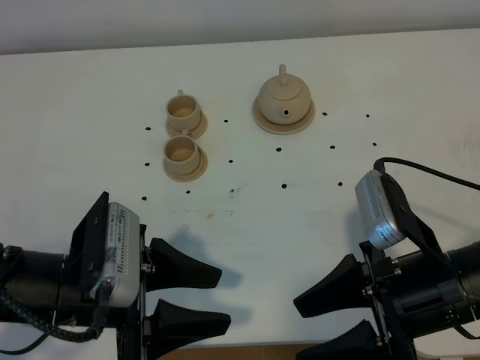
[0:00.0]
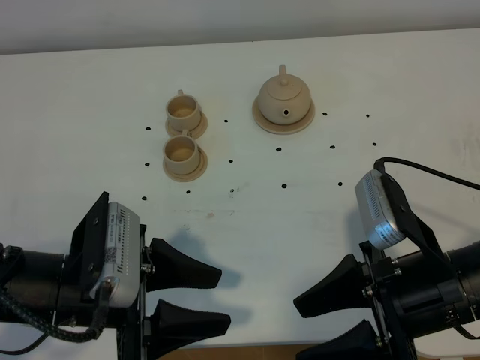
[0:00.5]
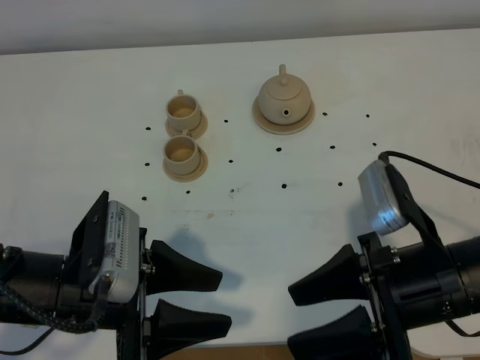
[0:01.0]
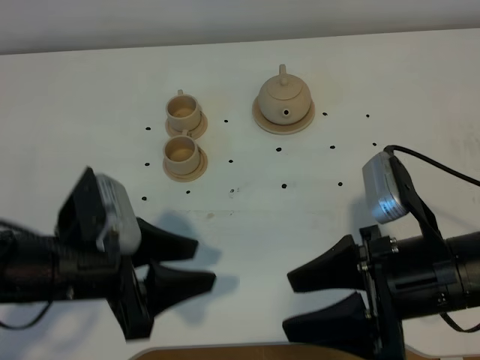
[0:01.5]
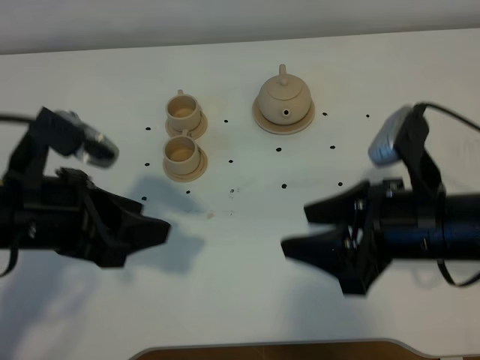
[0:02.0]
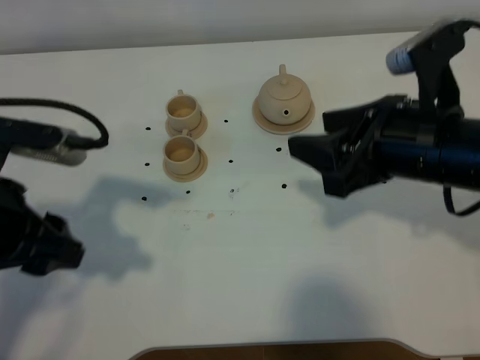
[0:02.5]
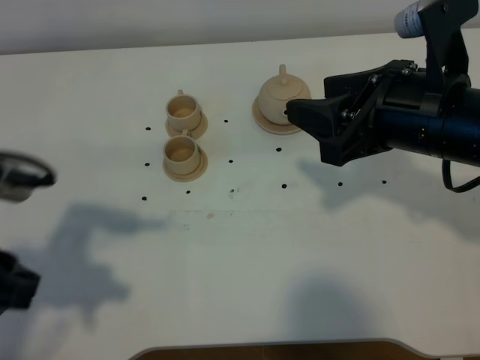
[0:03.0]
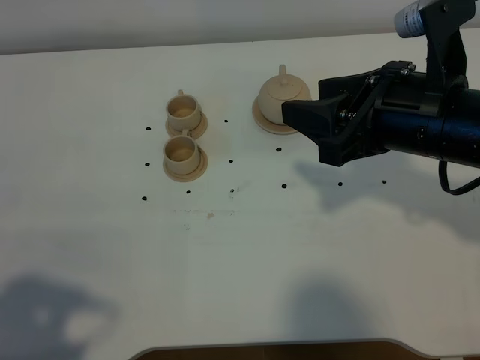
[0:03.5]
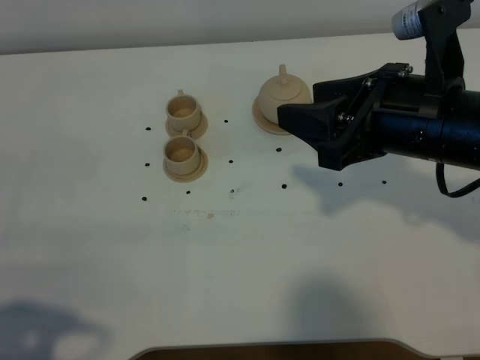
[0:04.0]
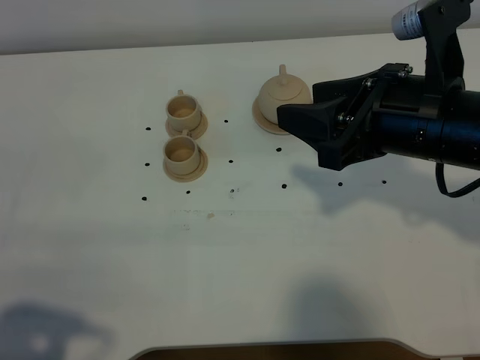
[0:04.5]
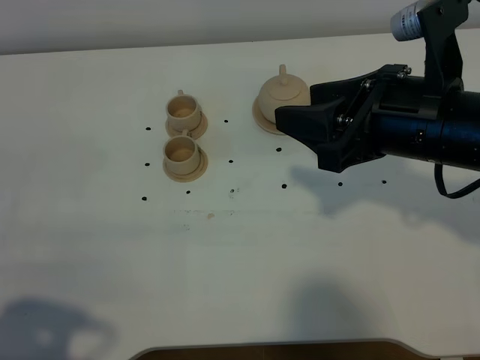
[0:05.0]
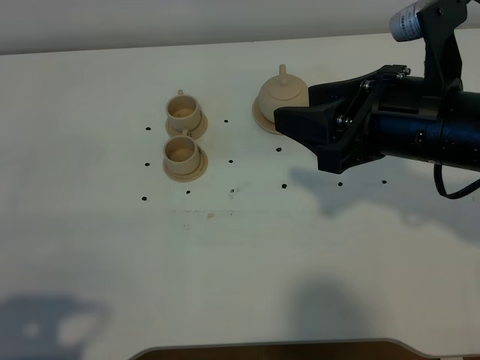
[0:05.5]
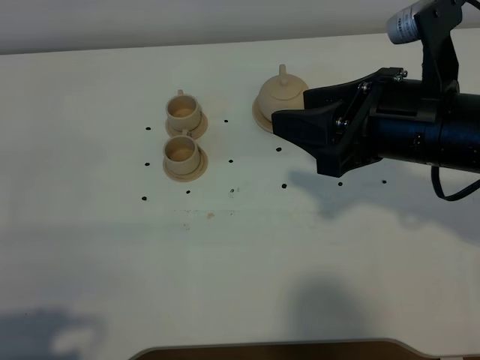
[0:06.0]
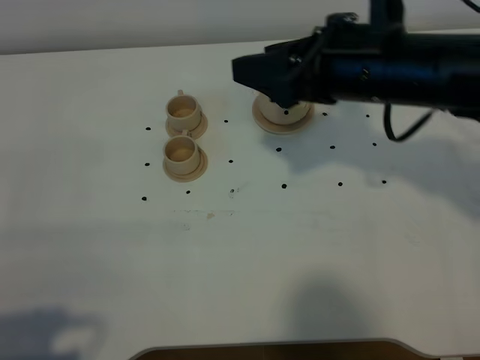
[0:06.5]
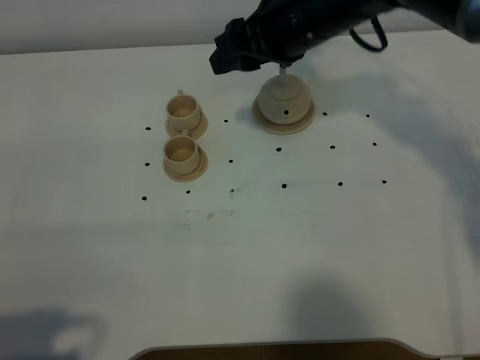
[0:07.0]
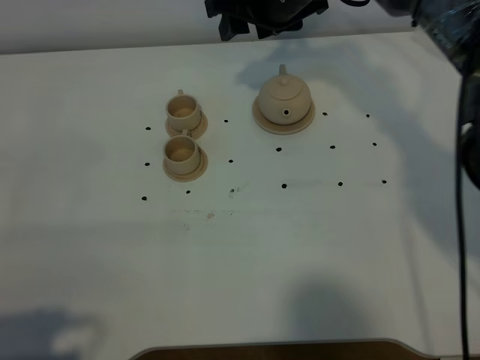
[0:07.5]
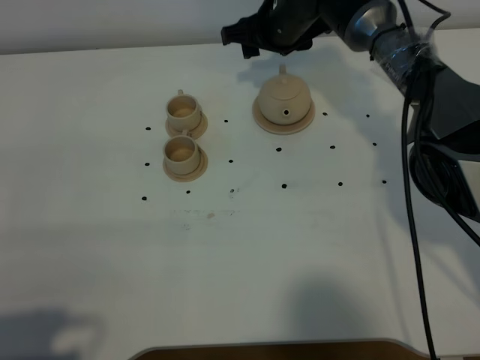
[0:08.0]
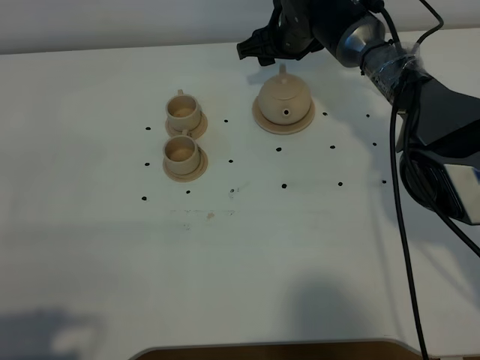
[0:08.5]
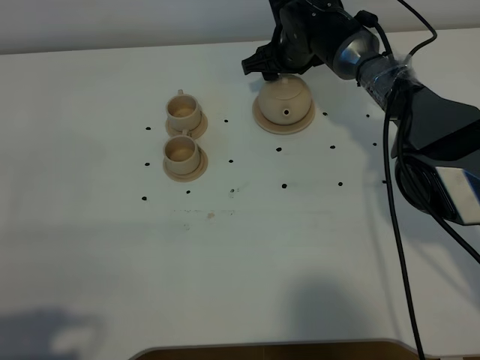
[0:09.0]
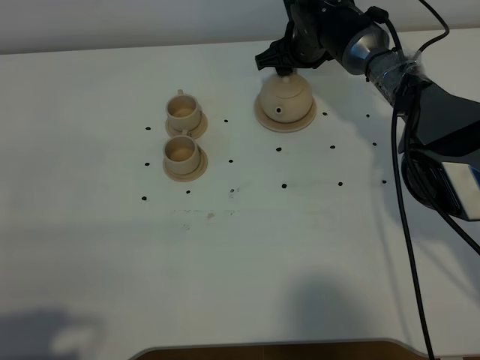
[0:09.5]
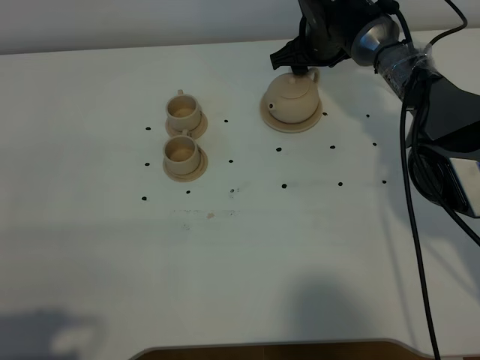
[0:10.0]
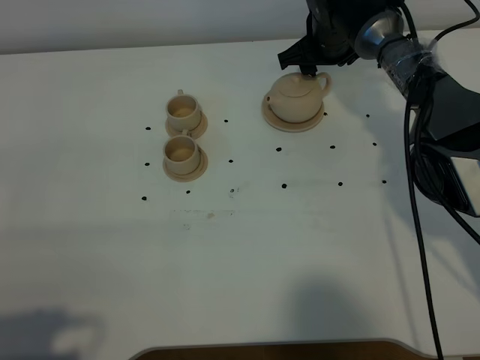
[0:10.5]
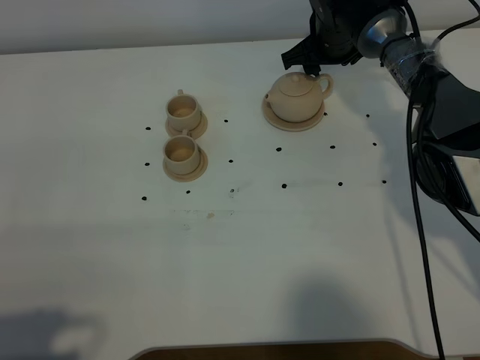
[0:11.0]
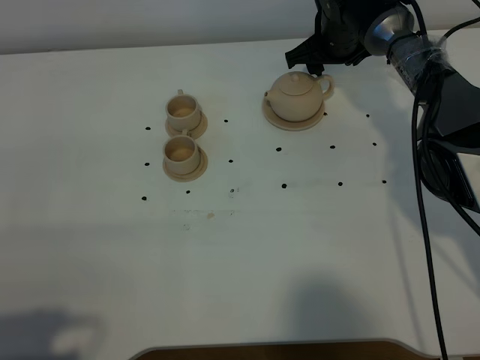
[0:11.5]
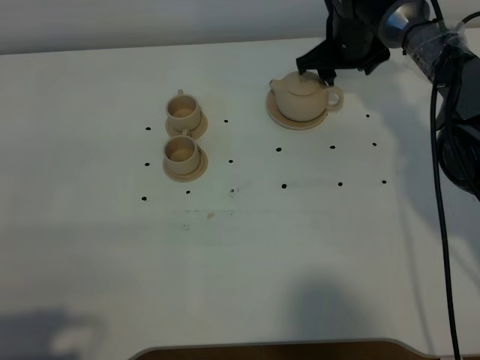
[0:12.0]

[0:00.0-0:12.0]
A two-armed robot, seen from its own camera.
Task of the whole recording: grasp the brown teapot and pour the tea into the two brown teacups one by one, put the brown teapot back in its original place.
0:00.0 to 0:02.0: The left gripper is displaced upward by roughly 5 cm. The right gripper changes place by approximately 5 cm.
0:02.0 to 0:04.0: The left gripper is displaced backward and to the left by approximately 20 cm, while the right gripper travels upward by roughly 5 cm.
0:04.0 to 0:06.0: There are only small adjustments of the grippers.
0:06.0 to 0:08.0: The right gripper travels forward by roughly 30 cm.
0:08.0 to 0:10.0: The right gripper is displaced to the right by about 5 cm.
0:10.0 to 0:12.0: The grippers make only small movements.

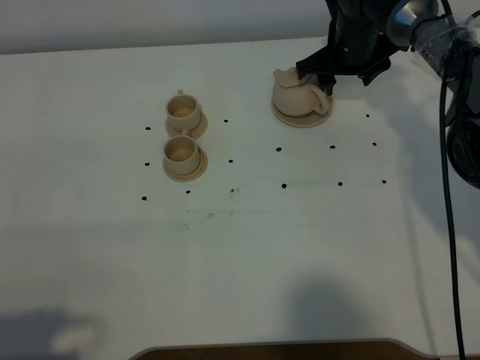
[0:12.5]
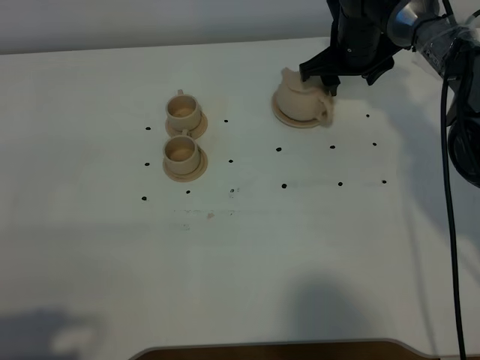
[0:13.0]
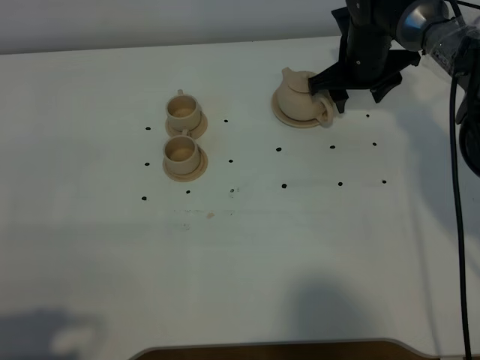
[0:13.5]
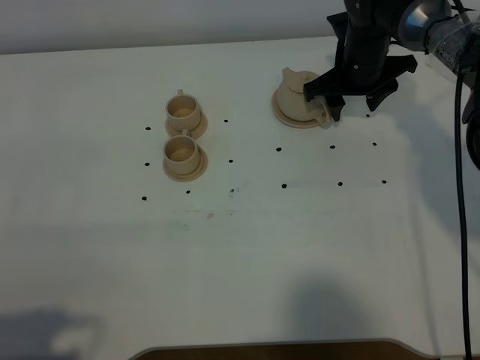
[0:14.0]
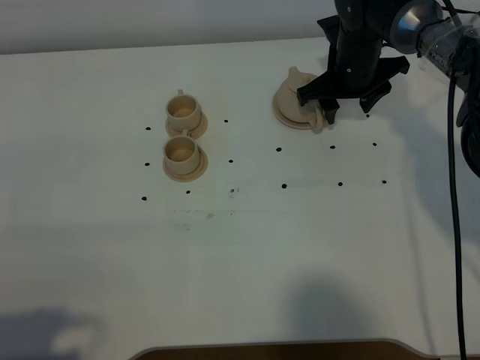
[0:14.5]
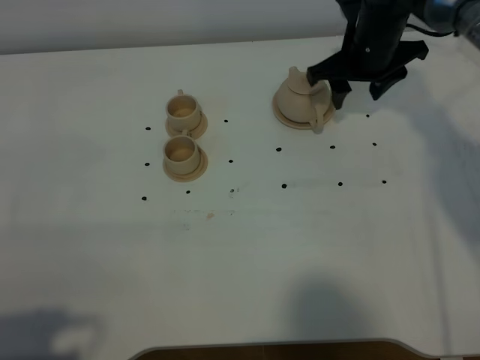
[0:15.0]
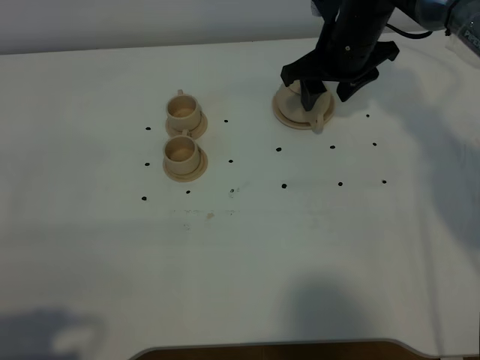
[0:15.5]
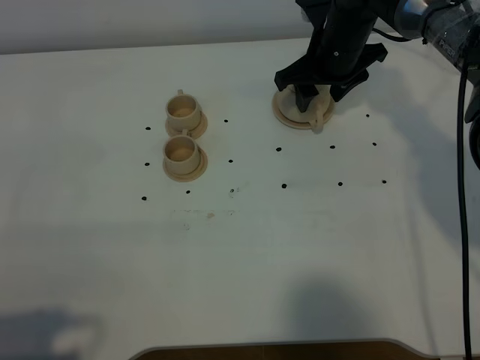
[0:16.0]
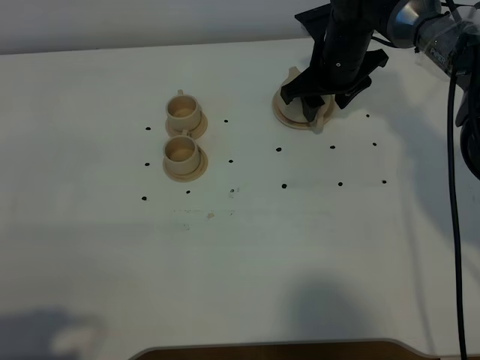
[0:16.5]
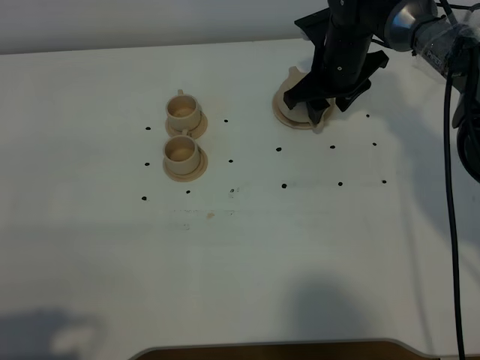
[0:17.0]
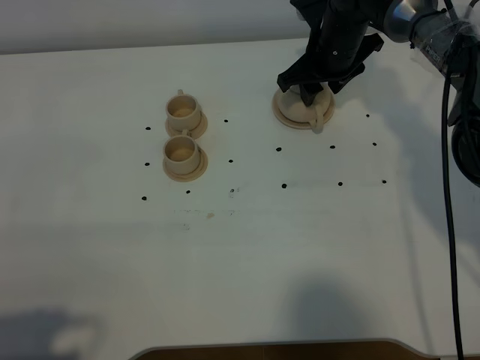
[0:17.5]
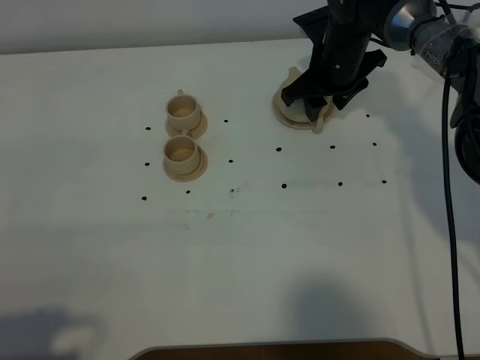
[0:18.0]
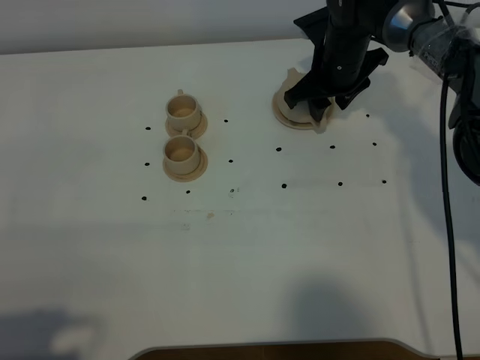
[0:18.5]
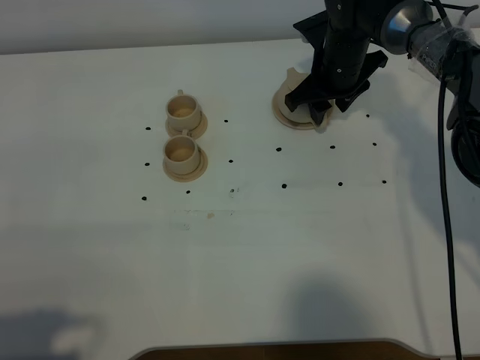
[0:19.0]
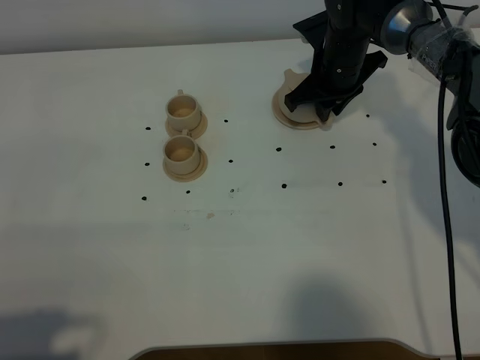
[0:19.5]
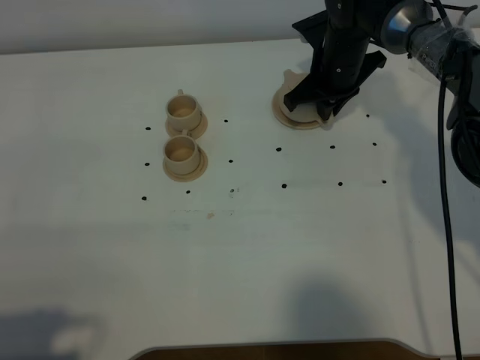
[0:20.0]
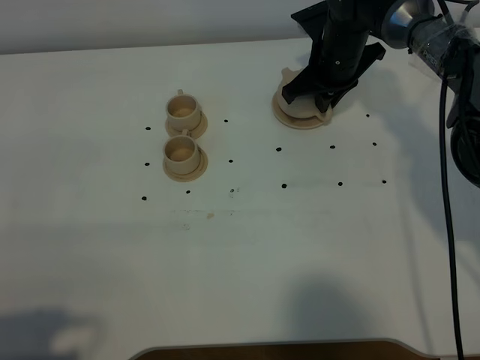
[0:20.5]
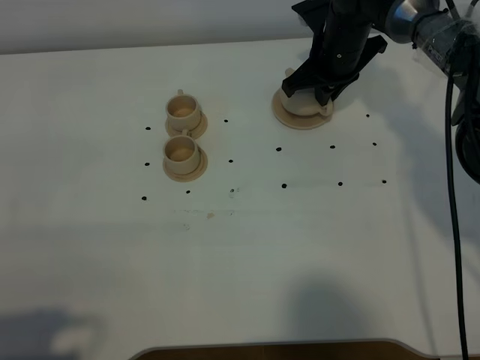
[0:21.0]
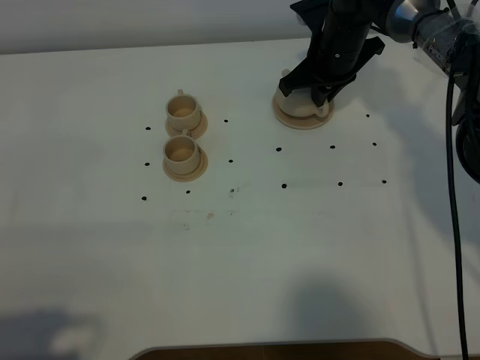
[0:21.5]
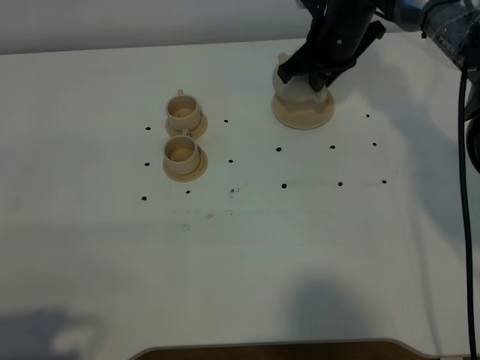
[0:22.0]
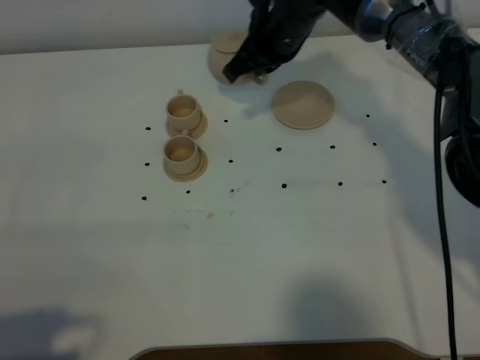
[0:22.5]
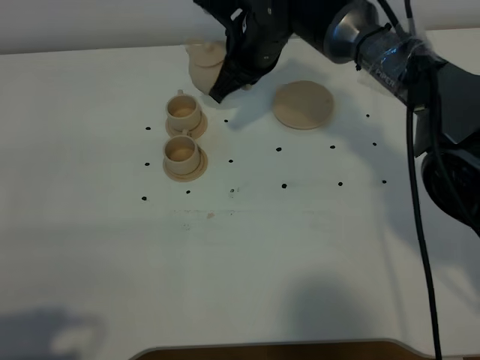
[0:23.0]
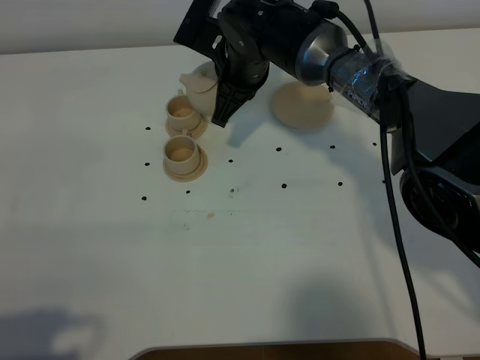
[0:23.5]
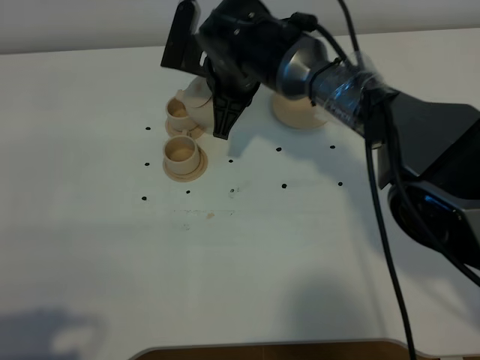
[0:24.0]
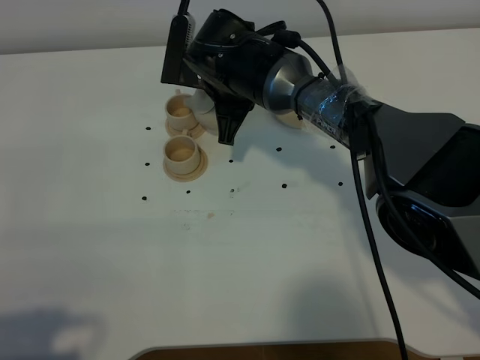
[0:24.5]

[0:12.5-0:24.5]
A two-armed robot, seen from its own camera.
Task of the whole recording: grasp the brown teapot and pour the tea into the two brown teacups one by one, put the brown teapot back in its original place.
Step, 0:12.5 to 0:20.5: Pick up the teapot with the right gripper.
0:12.5 to 0:14.5: The grippers stay close to where they were, moving slightly.
0:16.5 to 0:18.5: The grippers stay close to where they were, moving slightly.
0:18.5 to 0:20.5: The right gripper closes.
0:20.5 to 0:22.5: The right gripper moves to the left and upward, roughly 10 cm.
0:22.5 to 0:24.5: The right gripper is displaced to the left by approximately 5 cm.

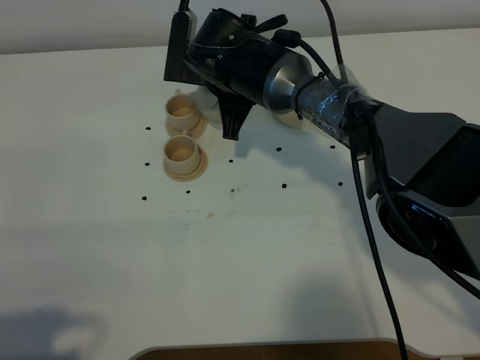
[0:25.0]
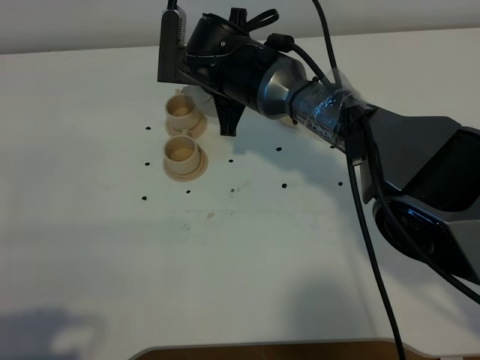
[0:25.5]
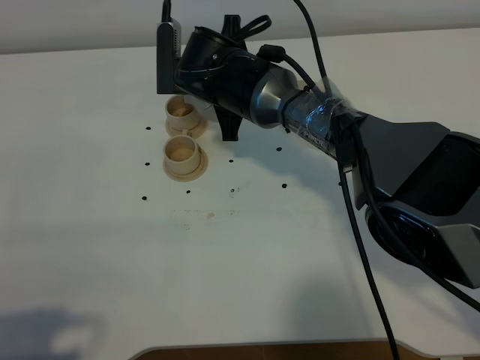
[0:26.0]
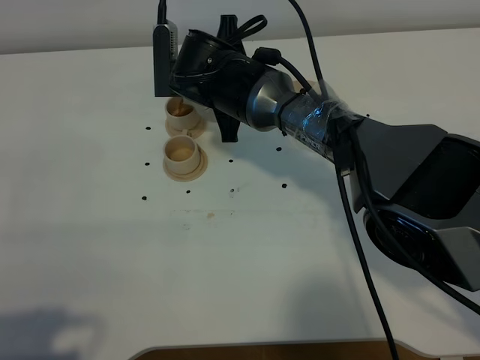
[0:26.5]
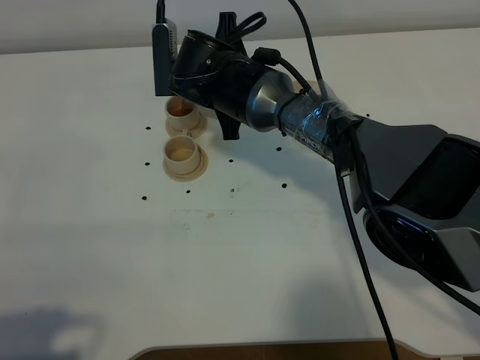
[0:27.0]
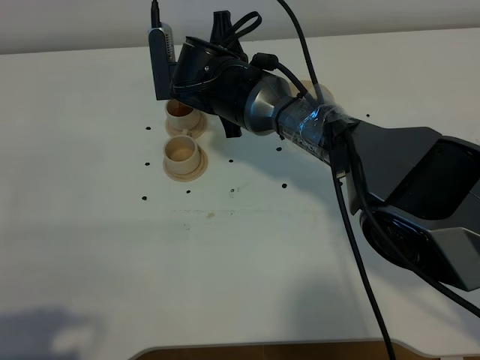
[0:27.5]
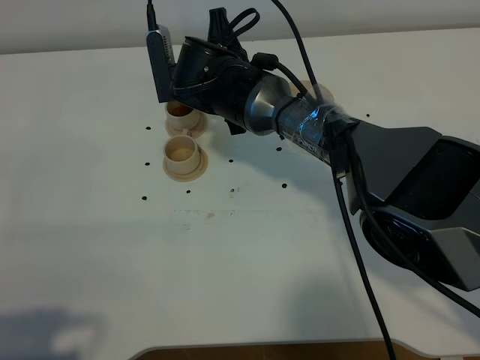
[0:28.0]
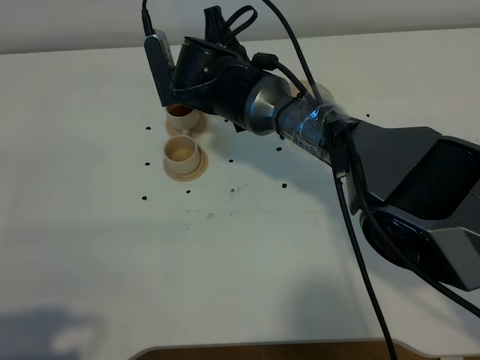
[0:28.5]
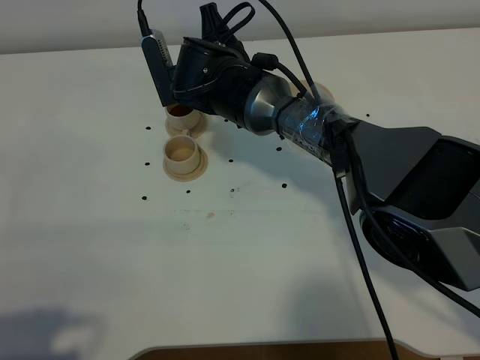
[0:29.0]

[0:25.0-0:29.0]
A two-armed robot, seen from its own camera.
Task of the whole recording: grasp the brown teapot and pour the tea into the two brown teacups one by one, put the brown teapot back in its original place.
0:25.0 to 0:27.0: The grippers stay close to where they were, moving slightly.
0:27.0 to 0:29.0: The grippers make only small movements.
